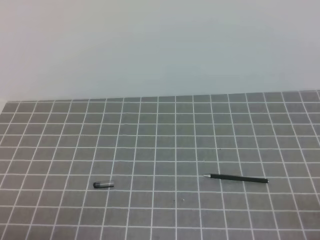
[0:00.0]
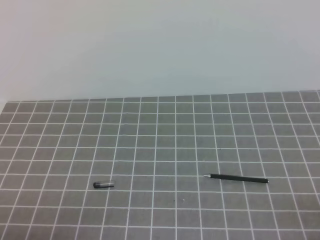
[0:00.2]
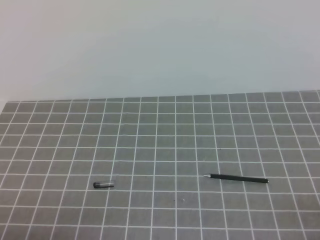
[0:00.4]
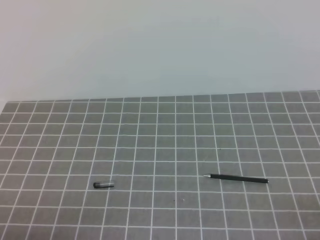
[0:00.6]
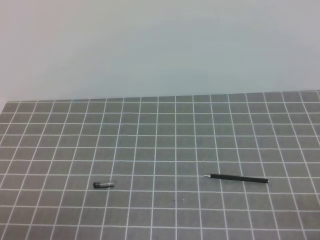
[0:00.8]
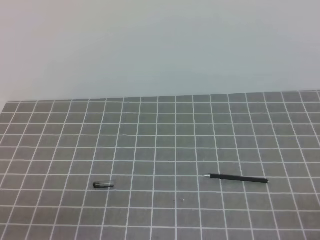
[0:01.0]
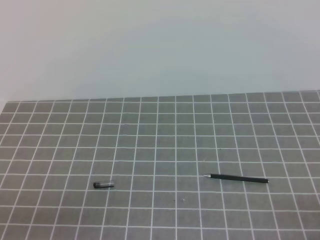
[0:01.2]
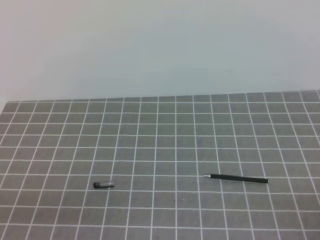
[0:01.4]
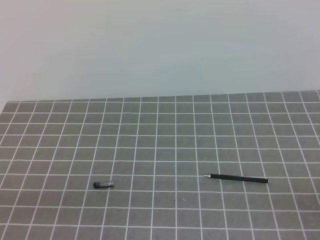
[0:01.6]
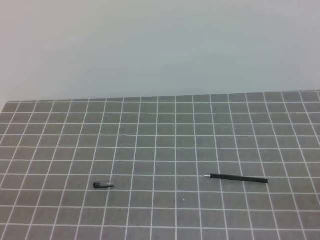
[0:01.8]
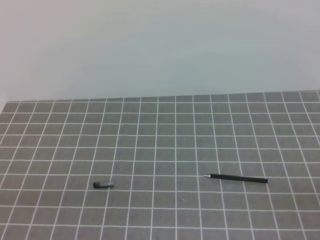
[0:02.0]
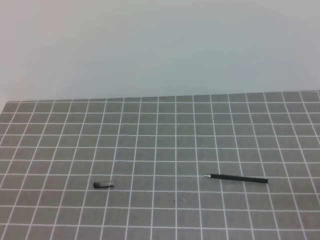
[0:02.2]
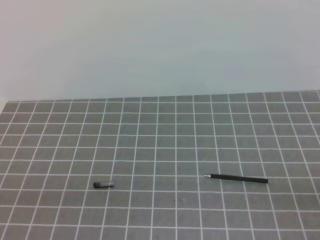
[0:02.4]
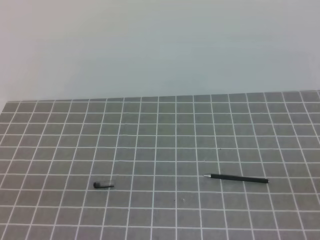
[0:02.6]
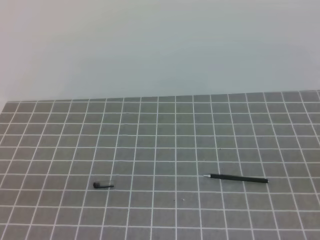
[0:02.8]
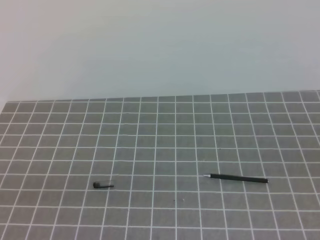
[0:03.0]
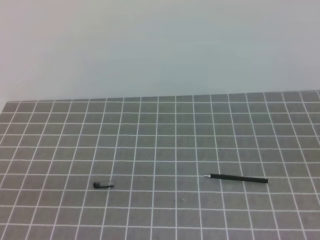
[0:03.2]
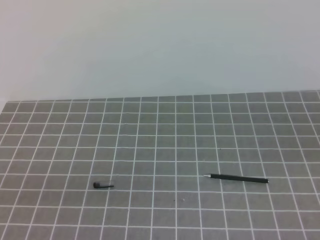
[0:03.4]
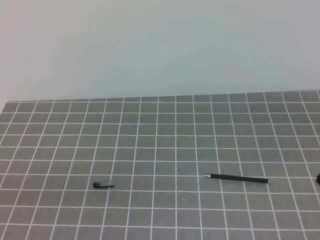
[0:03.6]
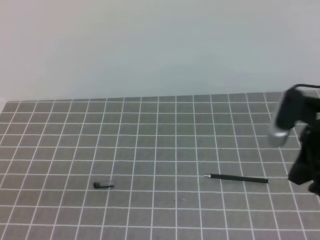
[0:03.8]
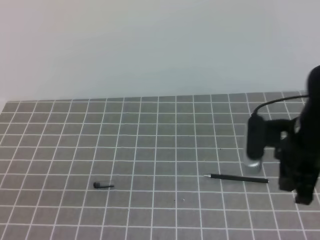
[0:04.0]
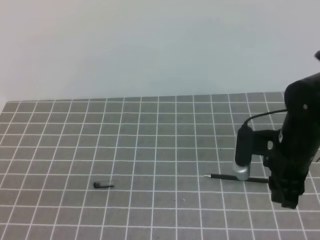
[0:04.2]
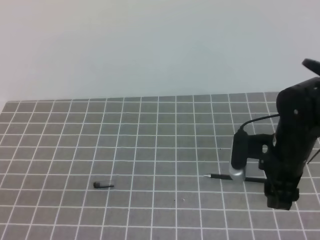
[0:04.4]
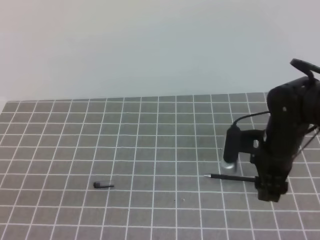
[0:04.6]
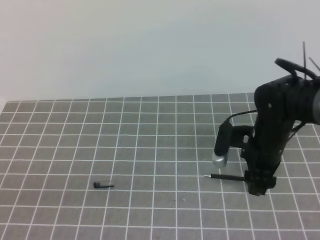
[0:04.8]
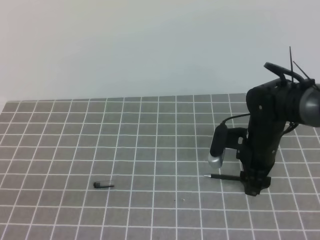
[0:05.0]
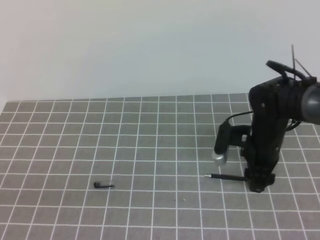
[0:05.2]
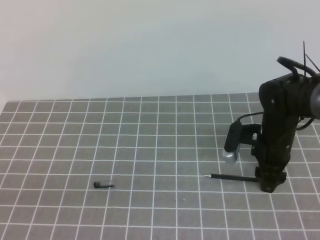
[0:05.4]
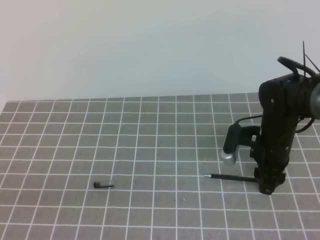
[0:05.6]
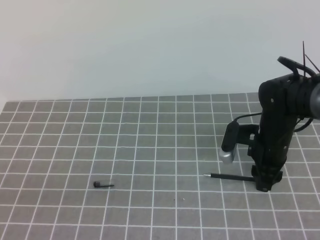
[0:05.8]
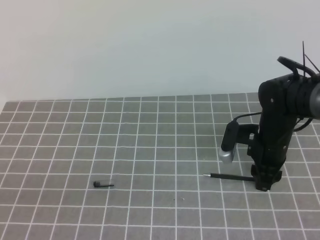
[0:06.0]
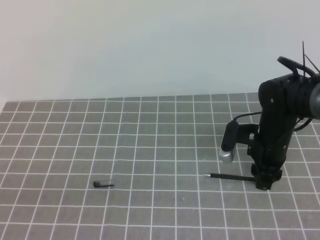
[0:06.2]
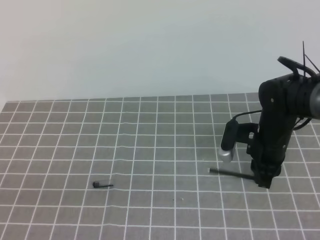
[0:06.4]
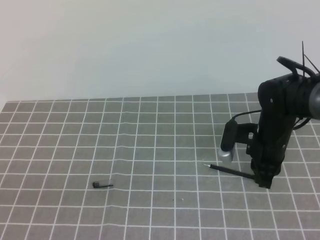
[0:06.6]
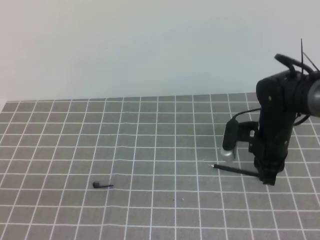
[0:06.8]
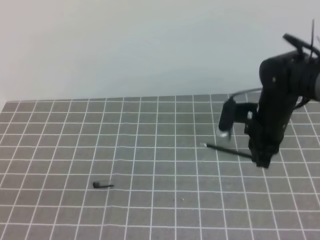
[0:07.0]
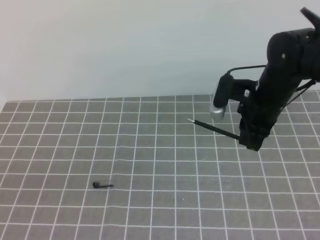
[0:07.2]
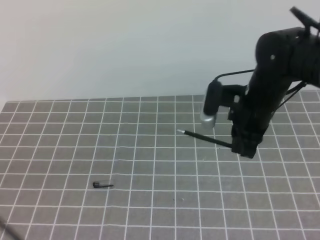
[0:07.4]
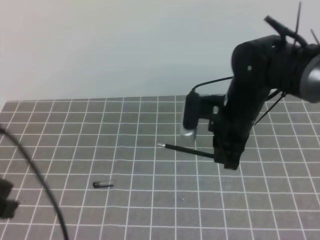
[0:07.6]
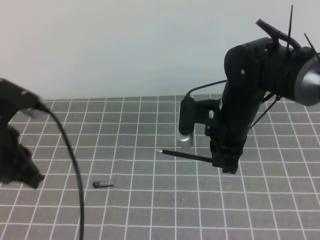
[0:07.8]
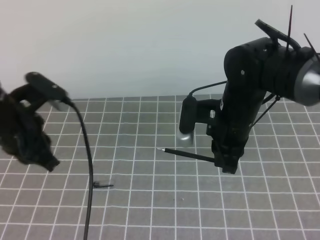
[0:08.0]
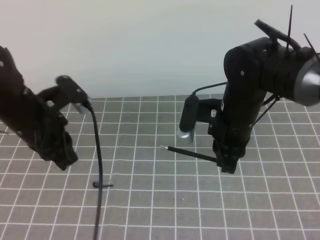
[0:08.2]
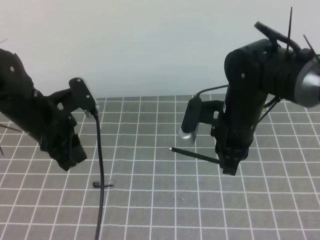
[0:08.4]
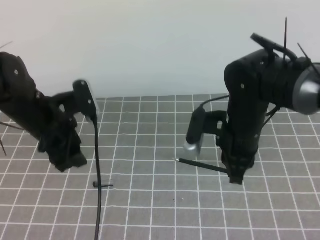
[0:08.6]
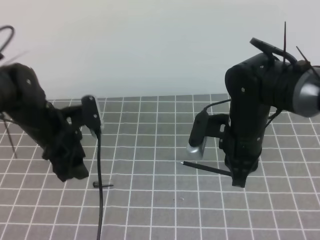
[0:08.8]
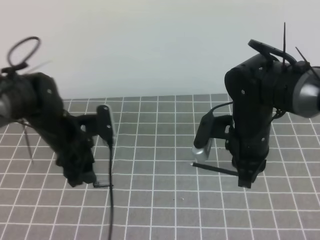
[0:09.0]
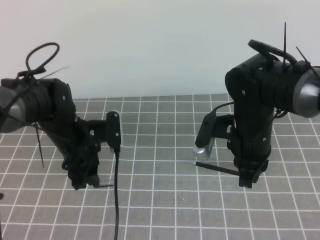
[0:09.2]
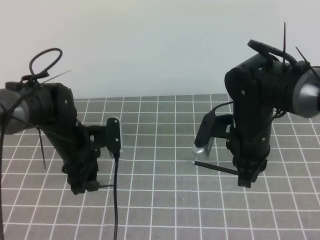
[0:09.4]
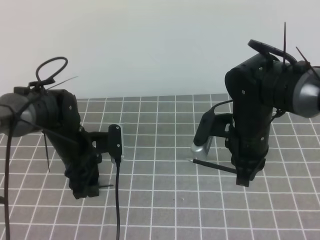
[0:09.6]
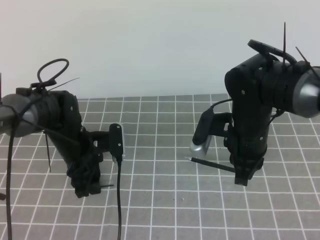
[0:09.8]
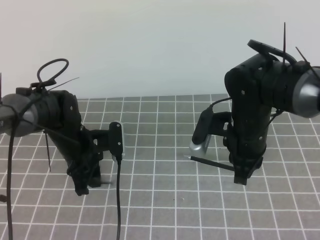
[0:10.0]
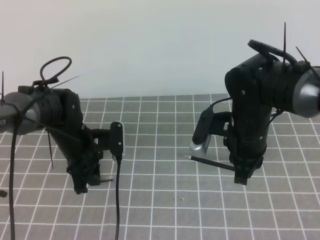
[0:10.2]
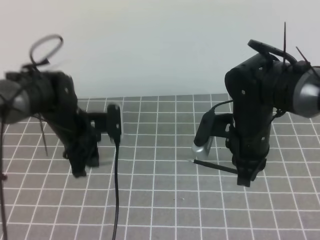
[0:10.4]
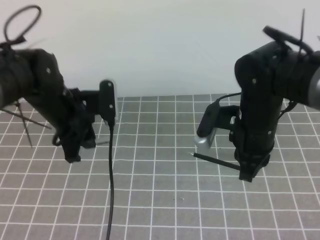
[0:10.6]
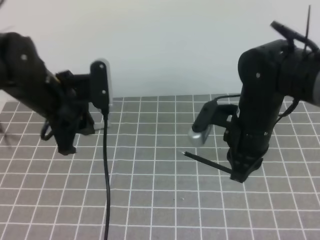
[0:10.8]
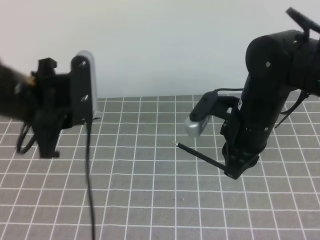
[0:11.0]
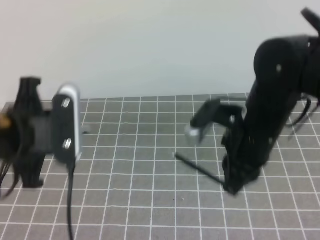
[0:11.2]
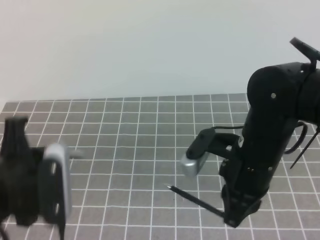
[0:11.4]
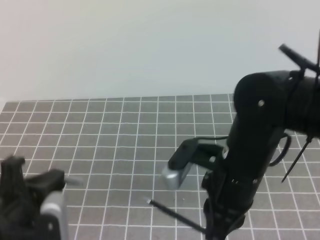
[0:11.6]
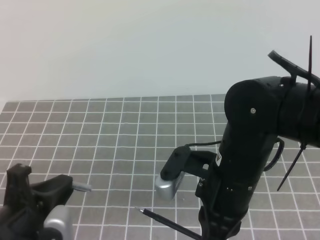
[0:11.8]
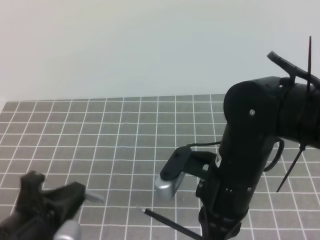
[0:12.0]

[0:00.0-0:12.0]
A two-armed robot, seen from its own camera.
Task of the whole recording: on the grey tablecloth, hold the pen cap in one hand and the pen in the other, then cover the pen cap.
0:03.0 to 0:04.4: The right gripper goes approximately 35 cm forward, downward and to the left, and opens.
0:04.4 to 0:06.0: The right gripper goes some 5 cm forward.
0:06.0 to 0:07.6: The right gripper goes about 10 cm upward and to the left, and closes up. Meanwhile the left gripper is displaced forward and upward by roughly 10 cm.
0:07.6 to 0:09.0: The left gripper goes roughly 25 cm forward, downward and to the right, and opens its fingers.
0:09.0 to 0:10.4: The left gripper closes its fingers.
0:10.4 to 0:12.0: The left gripper shifts about 25 cm backward. The right gripper is displaced backward and to the left by approximately 15 cm.

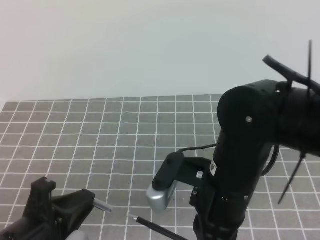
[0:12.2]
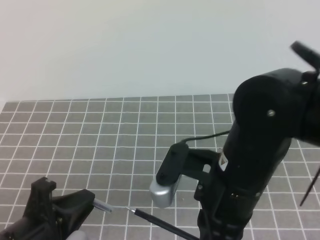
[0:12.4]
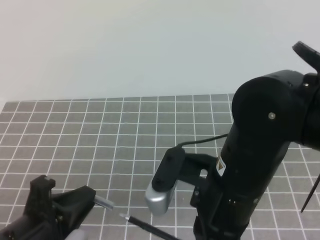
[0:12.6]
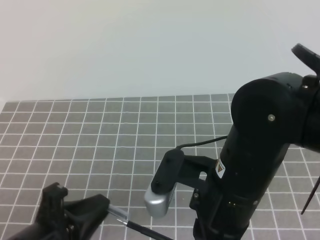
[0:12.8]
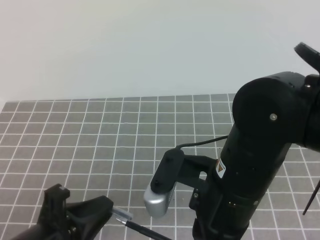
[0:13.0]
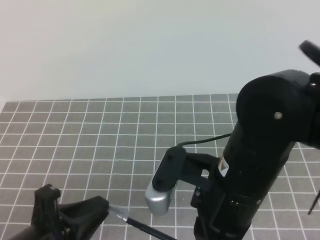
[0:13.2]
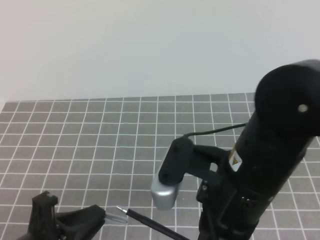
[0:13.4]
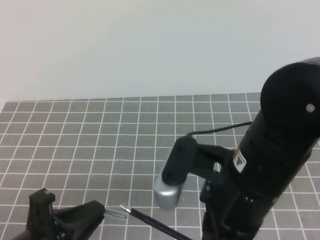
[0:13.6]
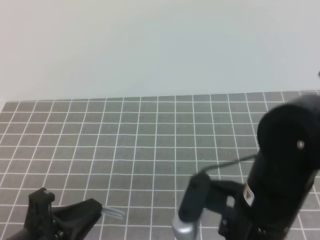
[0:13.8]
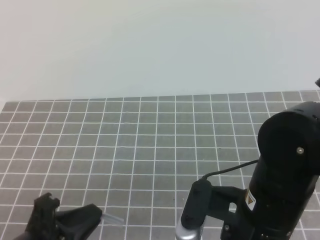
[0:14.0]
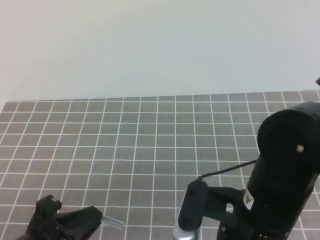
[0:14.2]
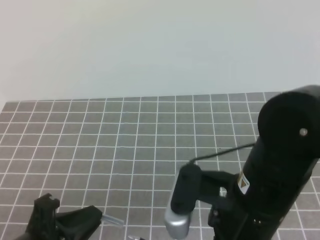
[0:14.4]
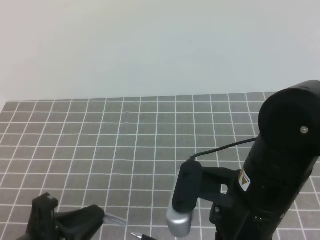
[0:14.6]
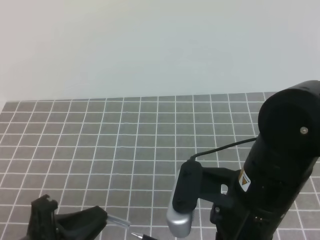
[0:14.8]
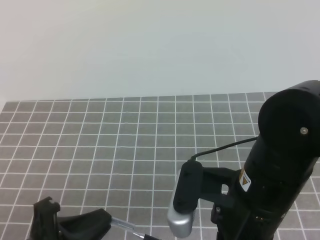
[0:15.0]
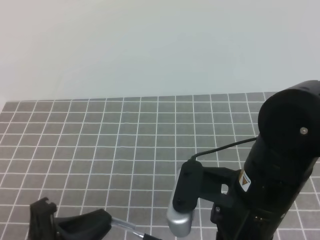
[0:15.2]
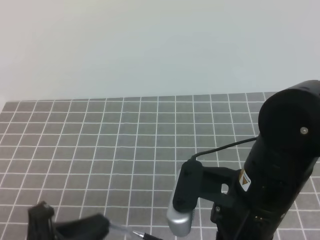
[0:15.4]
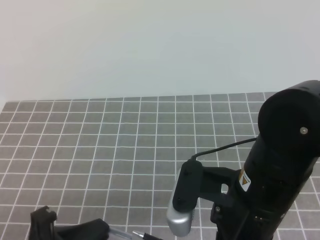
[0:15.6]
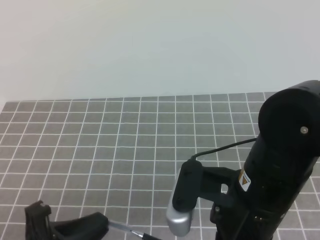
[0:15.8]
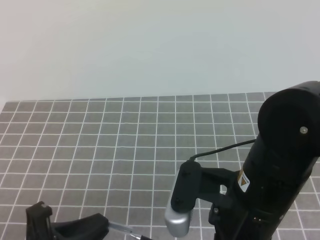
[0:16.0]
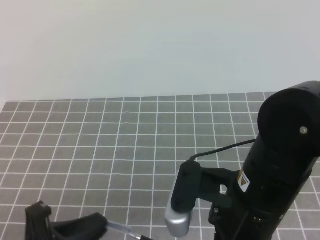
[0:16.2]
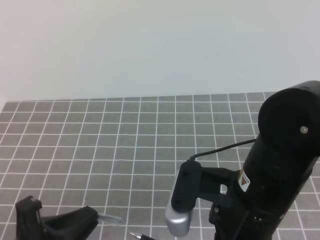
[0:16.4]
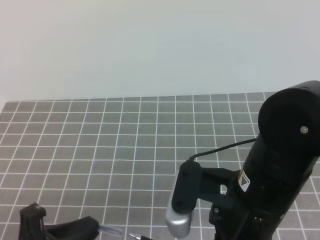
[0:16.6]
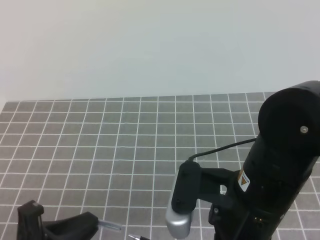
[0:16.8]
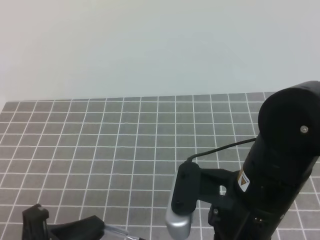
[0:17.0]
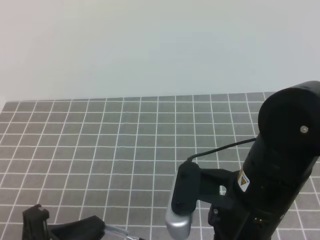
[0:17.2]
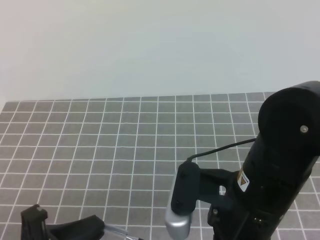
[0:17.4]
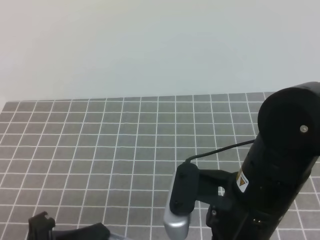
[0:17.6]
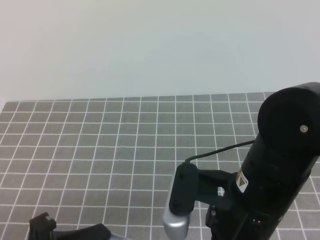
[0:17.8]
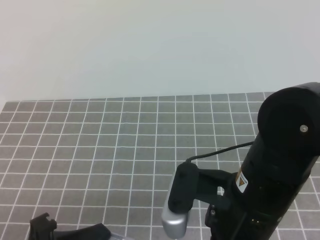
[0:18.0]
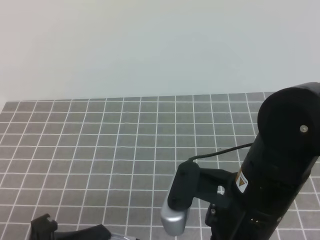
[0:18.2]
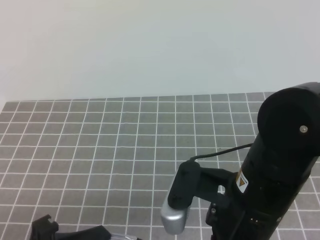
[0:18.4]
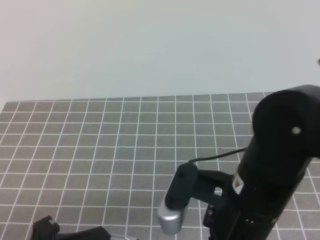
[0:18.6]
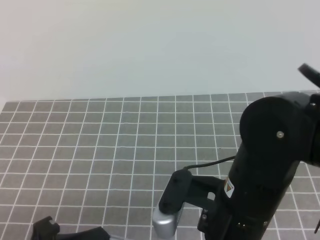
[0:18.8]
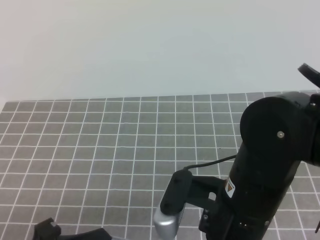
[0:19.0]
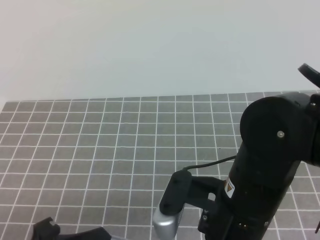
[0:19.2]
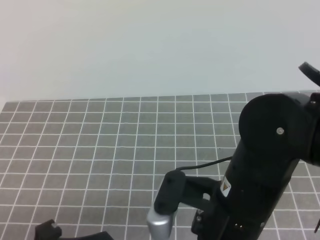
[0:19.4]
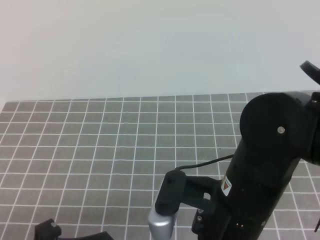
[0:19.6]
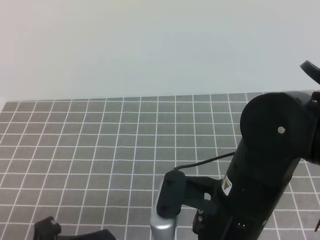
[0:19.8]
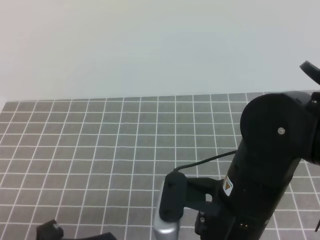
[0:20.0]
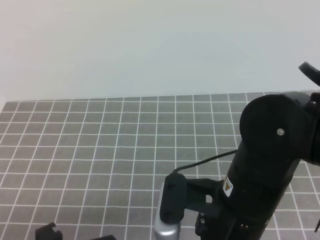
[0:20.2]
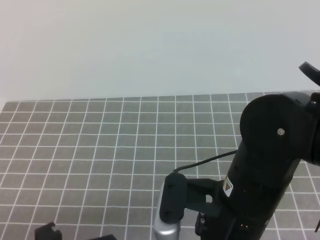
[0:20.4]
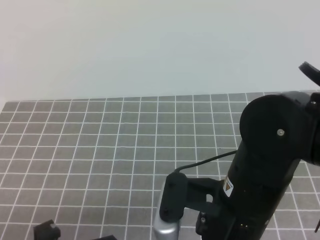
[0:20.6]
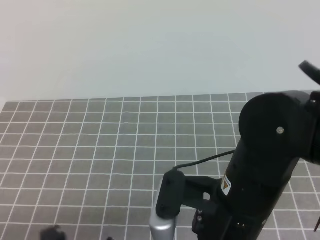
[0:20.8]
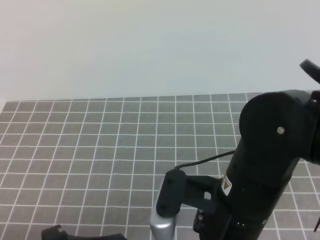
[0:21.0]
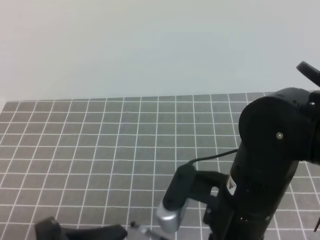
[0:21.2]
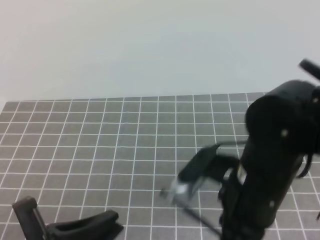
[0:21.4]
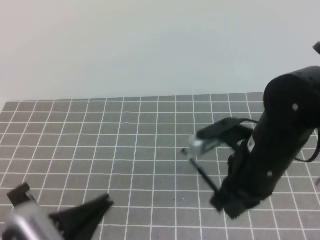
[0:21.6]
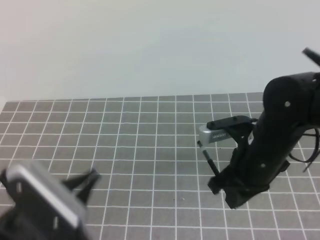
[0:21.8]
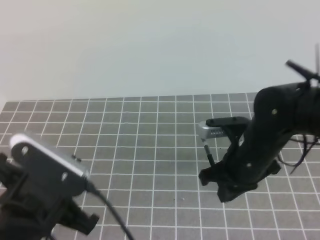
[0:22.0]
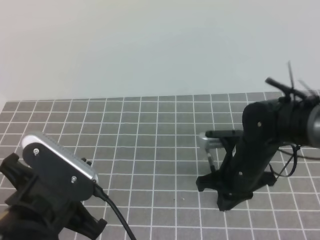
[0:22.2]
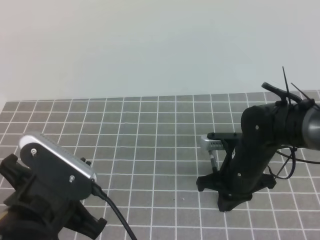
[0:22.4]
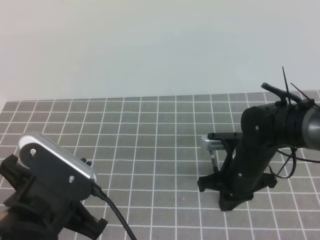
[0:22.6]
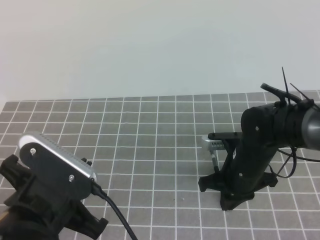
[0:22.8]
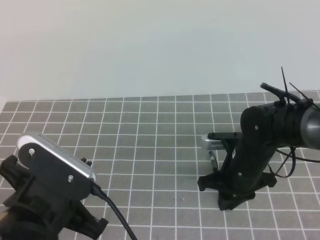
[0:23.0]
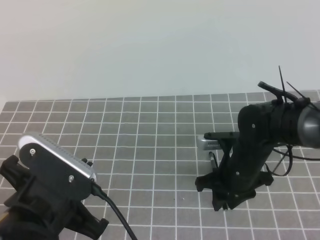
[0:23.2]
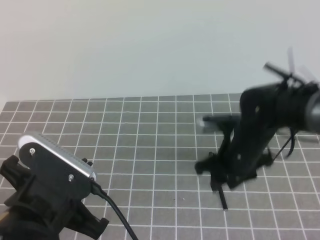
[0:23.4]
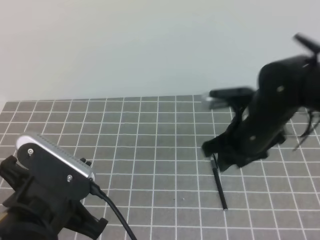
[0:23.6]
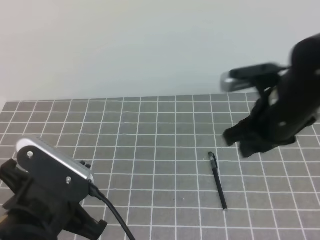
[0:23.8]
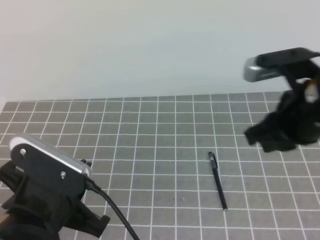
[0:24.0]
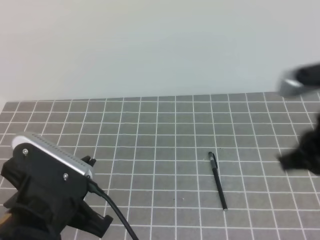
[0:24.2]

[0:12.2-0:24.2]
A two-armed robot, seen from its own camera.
Task of the whole recording: on the grey tablecloth, hold the pen cap in one hand and the pen in the other, then cover the pen cap.
0:12.2 to 0:13.8: The right gripper moves some 5 cm.
0:13.8 to 0:19.8: The grippers move only a little.
0:19.8 to 0:21.2: The left gripper opens its fingers.
0:21.2 to 0:22.6: The left gripper shifts about 5 cm forward, and closes. Meanwhile the right gripper moves forward and downward, about 20 cm.
0:22.6 to 0:24.2: The right gripper shifts about 25 cm upward, backward and to the right, and opens, then closes once more.
